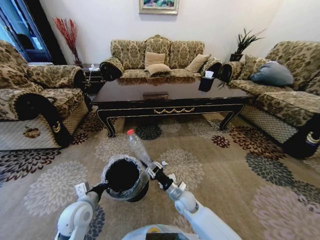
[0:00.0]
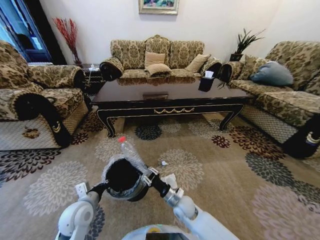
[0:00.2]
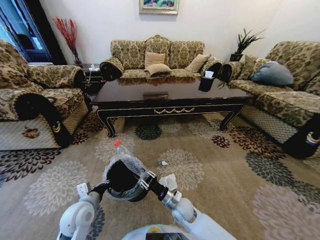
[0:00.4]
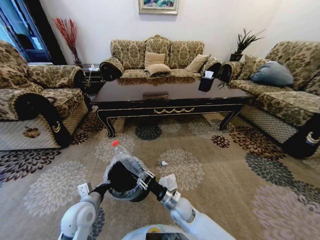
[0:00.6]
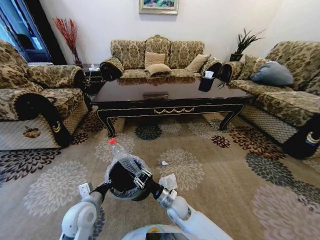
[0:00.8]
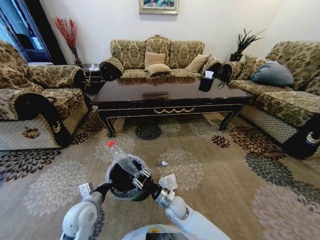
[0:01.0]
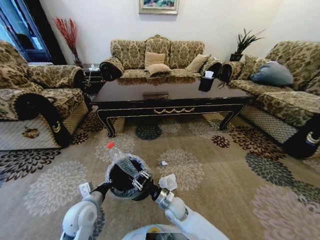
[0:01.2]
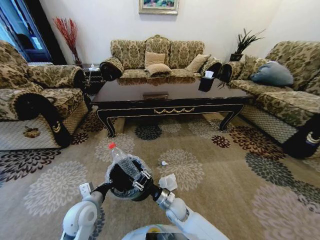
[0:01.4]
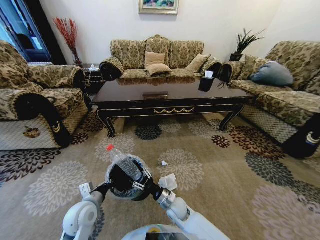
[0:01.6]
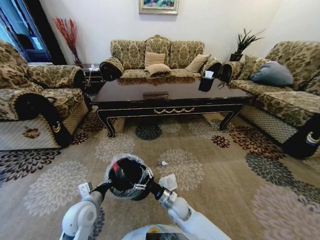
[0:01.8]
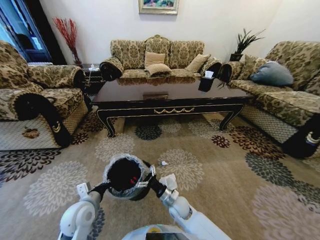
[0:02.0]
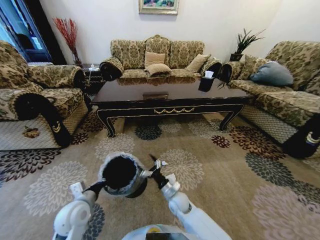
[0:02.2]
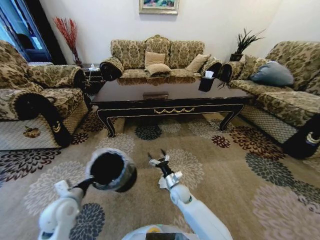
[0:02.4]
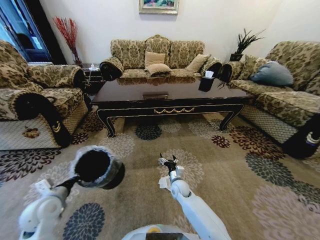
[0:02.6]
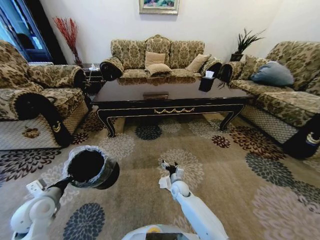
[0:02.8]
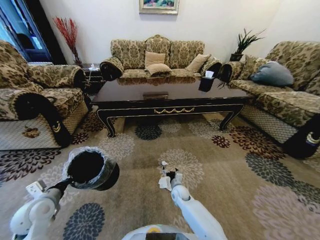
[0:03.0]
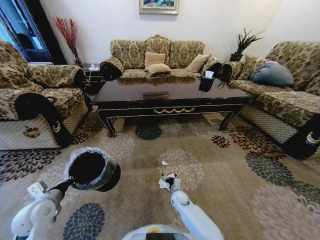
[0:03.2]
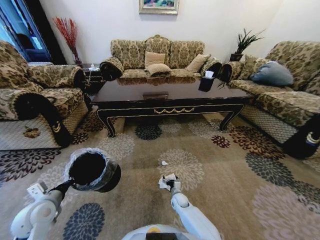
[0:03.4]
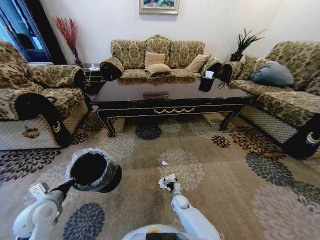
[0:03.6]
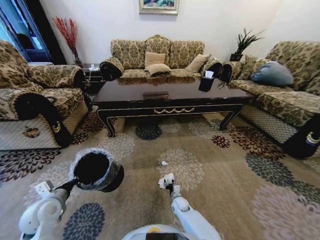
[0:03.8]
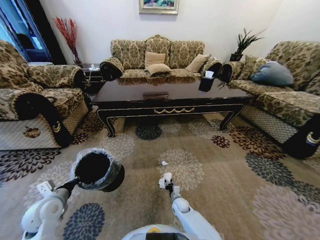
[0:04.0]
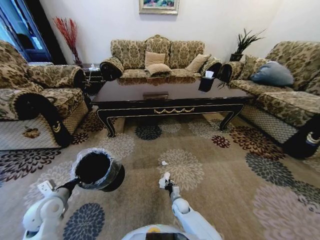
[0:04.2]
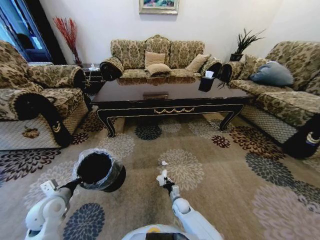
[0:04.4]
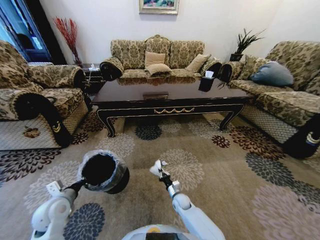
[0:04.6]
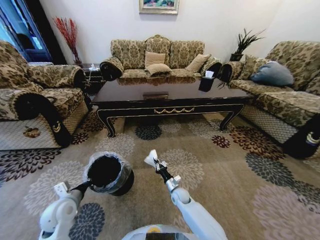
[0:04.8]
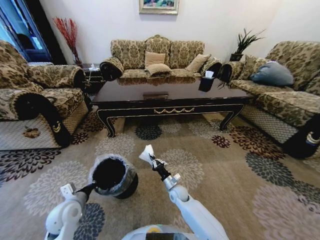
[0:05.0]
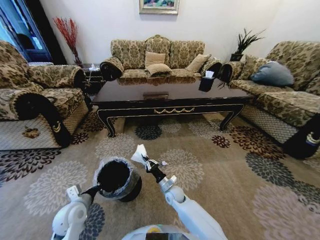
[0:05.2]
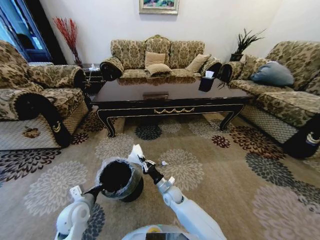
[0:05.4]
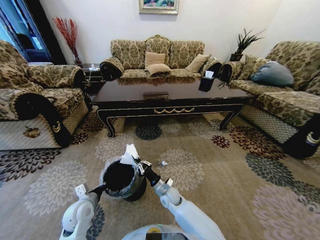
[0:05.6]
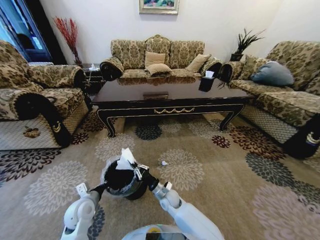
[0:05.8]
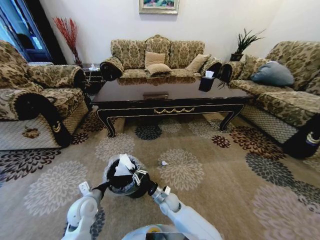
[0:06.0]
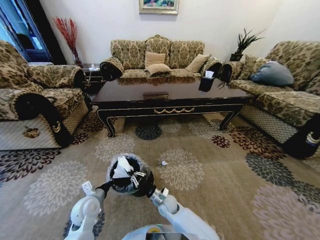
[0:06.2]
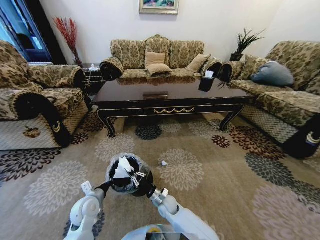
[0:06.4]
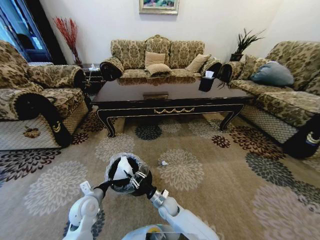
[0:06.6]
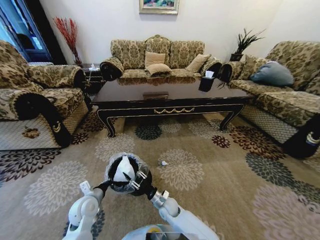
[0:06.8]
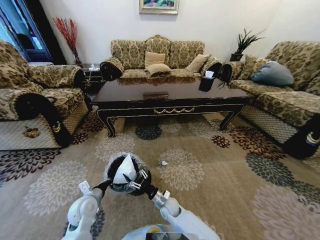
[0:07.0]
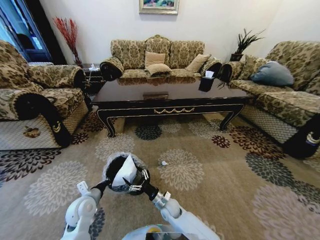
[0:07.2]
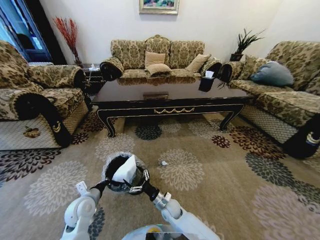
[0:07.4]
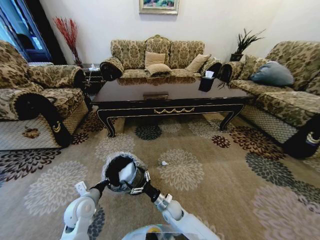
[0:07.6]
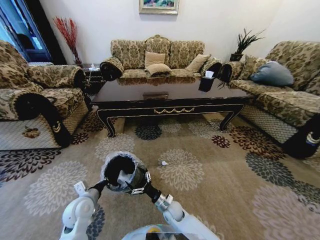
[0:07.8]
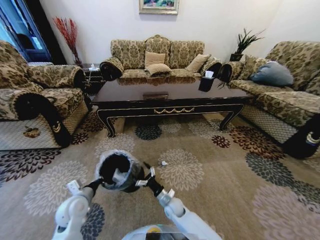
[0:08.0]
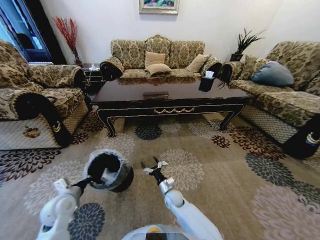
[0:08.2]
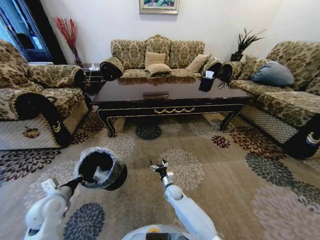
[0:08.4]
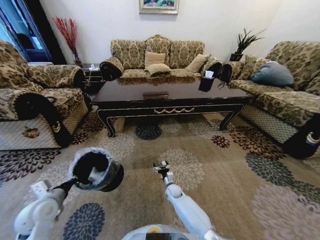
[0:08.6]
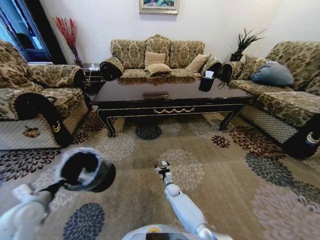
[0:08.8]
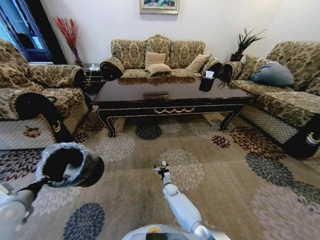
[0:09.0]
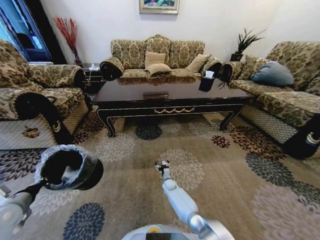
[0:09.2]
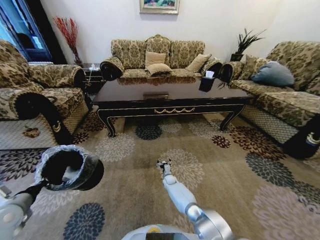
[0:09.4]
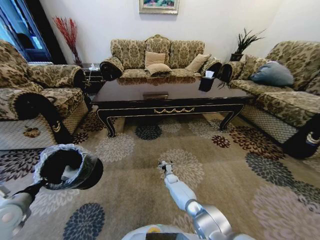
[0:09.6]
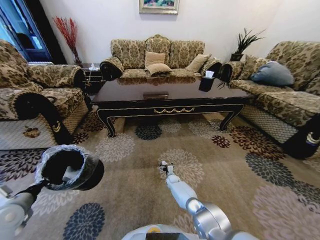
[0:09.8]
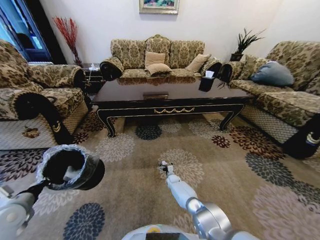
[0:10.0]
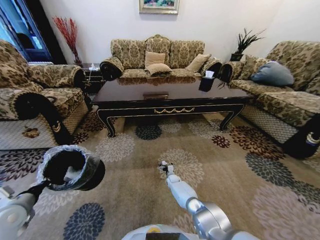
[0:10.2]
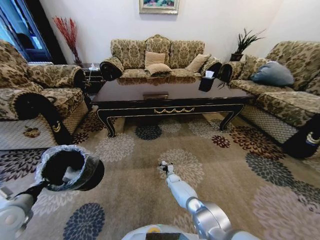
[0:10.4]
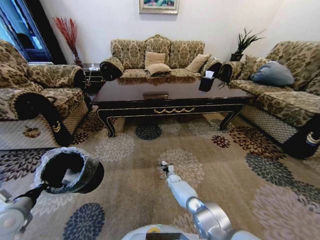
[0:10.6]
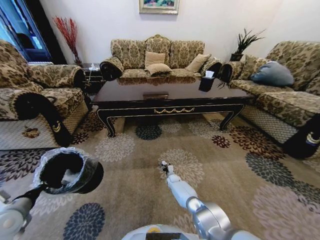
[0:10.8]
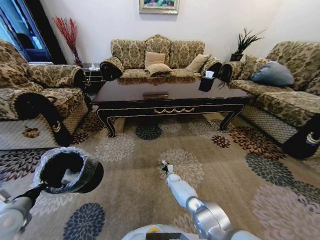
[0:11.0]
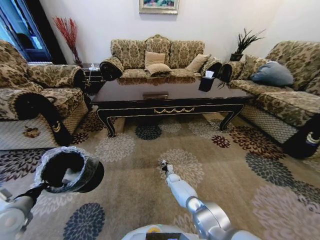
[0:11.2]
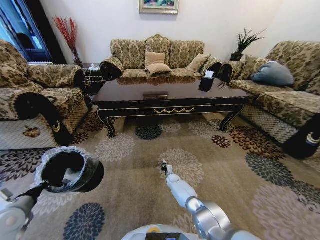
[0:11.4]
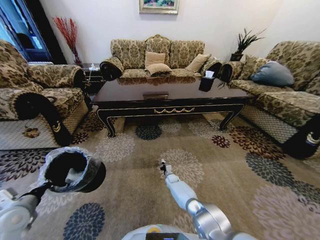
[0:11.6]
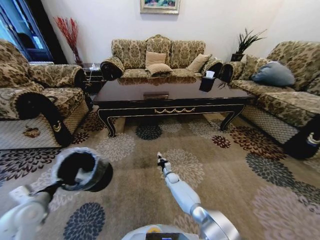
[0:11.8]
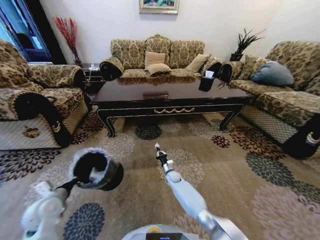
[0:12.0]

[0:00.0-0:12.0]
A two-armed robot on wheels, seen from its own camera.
Task of the whole recording: Move to the front of the table and pick up the trash from the floor, then place it into the trash bin.
0:00.0 to 0:01.6: The right gripper ends up some 5 cm from where it was.
0:01.6 to 0:03.0: The right gripper shifts about 10 cm forward and downward, and opens up. Meanwhile the left gripper goes about 15 cm to the left.
0:03.0 to 0:04.4: The right gripper travels downward by approximately 5 cm, and closes its fingers.
0:04.4 to 0:06.0: The left gripper heads to the right, covering some 10 cm, while the right gripper moves upward and to the left, some 15 cm.
0:06.0 to 0:07.6: The right gripper opens.
0:07.6 to 0:09.0: The right gripper heads forward and downward, covering about 15 cm. The left gripper moves to the left and upward, roughly 20 cm.
0:09.0 to 0:10.4: The right gripper is displaced forward by roughly 5 cm.
0:10.4 to 0:12.0: The right gripper is displaced upward by about 10 cm, and closes up. The left gripper heads to the right and downward, covering about 10 cm.

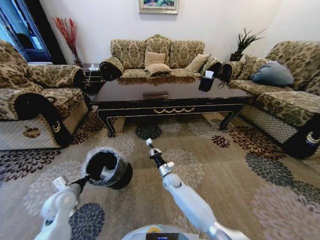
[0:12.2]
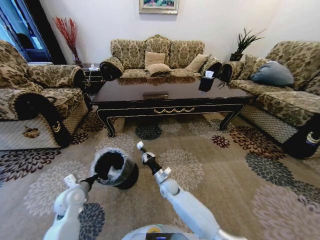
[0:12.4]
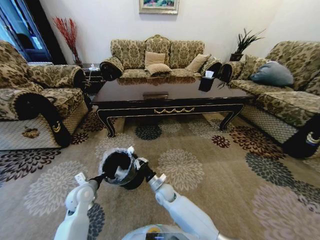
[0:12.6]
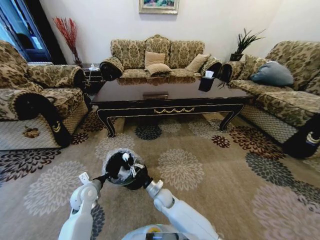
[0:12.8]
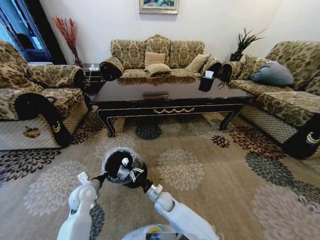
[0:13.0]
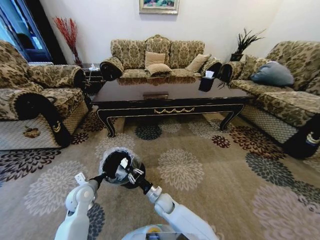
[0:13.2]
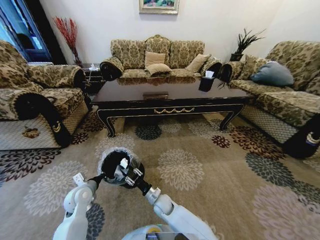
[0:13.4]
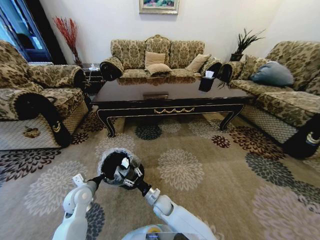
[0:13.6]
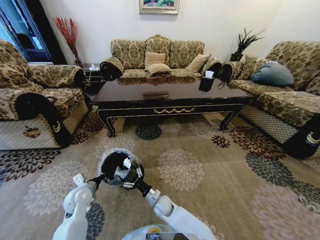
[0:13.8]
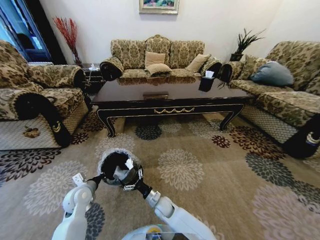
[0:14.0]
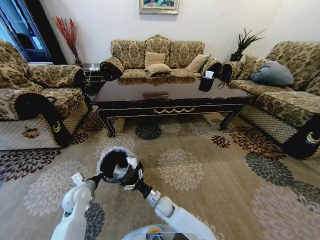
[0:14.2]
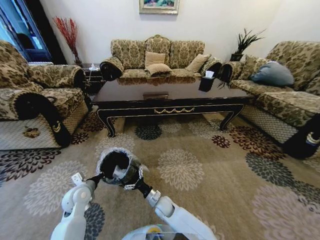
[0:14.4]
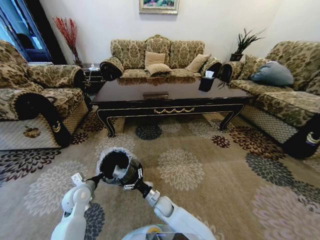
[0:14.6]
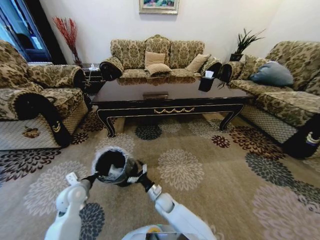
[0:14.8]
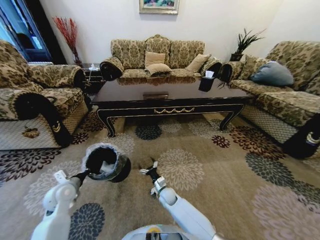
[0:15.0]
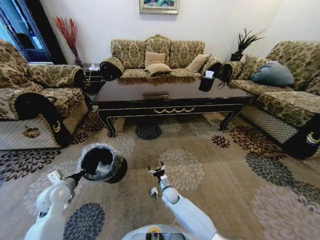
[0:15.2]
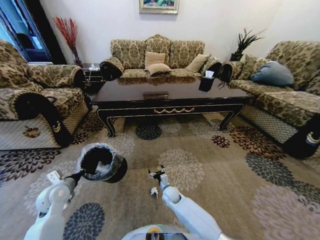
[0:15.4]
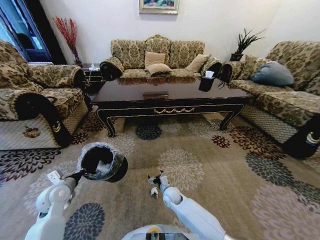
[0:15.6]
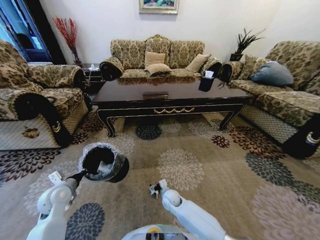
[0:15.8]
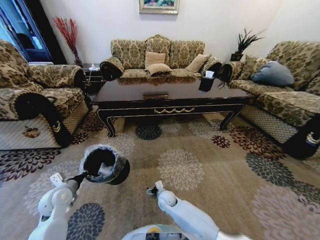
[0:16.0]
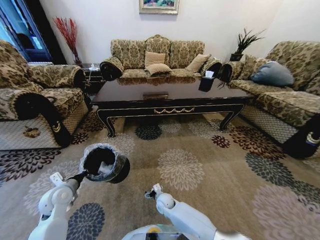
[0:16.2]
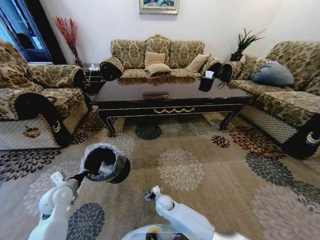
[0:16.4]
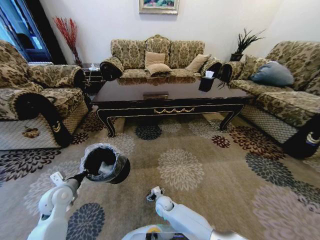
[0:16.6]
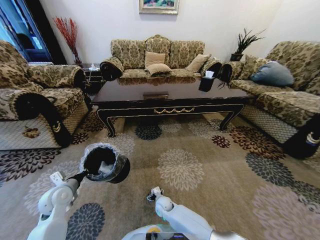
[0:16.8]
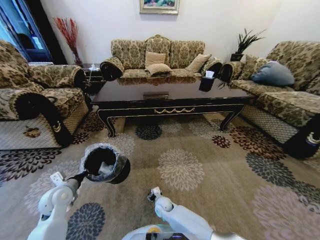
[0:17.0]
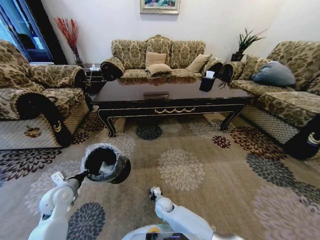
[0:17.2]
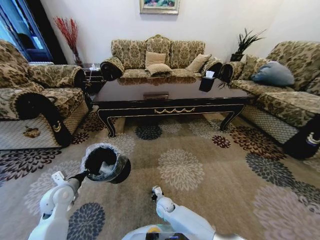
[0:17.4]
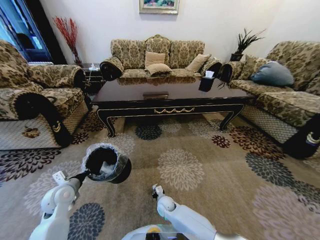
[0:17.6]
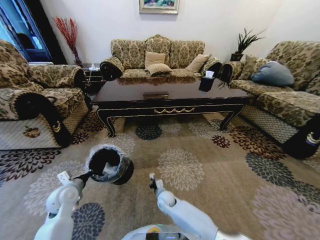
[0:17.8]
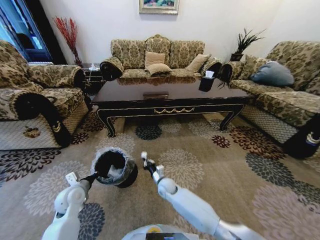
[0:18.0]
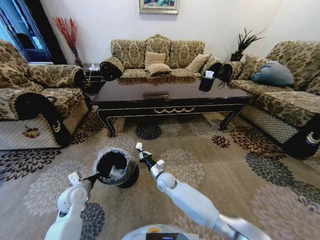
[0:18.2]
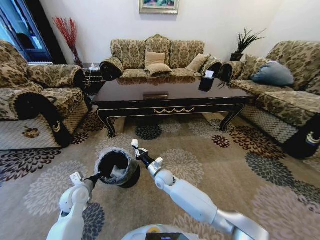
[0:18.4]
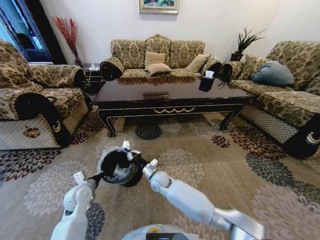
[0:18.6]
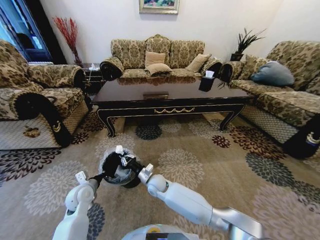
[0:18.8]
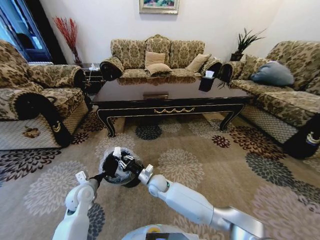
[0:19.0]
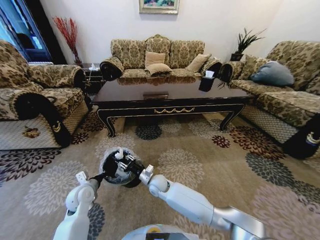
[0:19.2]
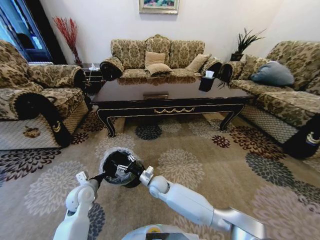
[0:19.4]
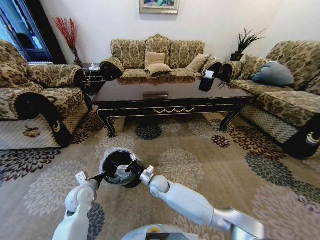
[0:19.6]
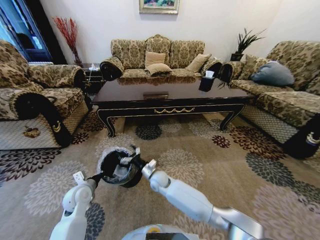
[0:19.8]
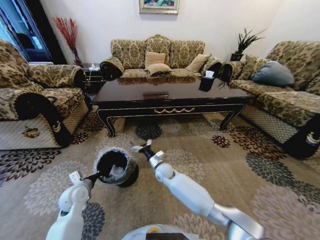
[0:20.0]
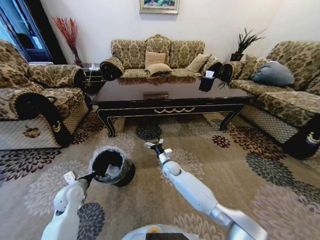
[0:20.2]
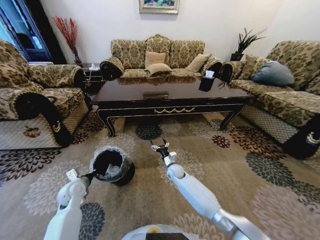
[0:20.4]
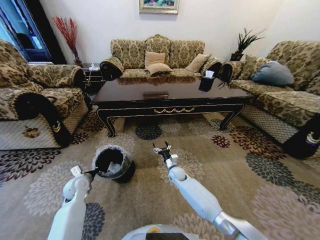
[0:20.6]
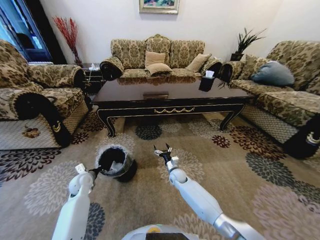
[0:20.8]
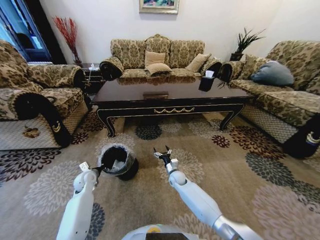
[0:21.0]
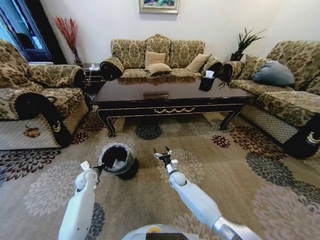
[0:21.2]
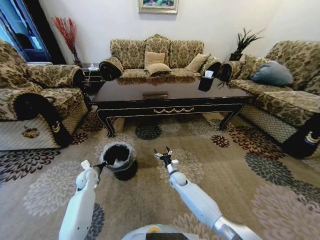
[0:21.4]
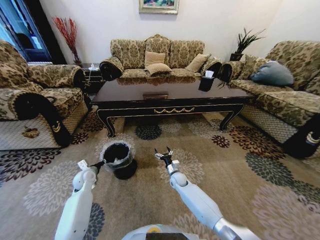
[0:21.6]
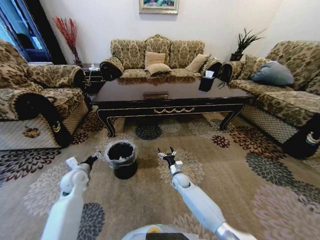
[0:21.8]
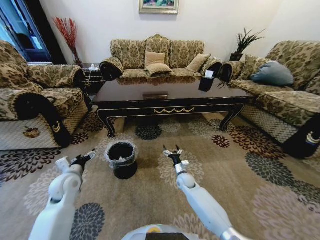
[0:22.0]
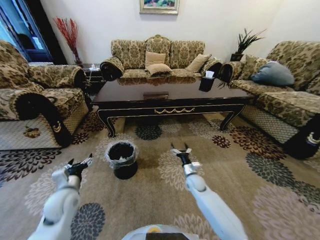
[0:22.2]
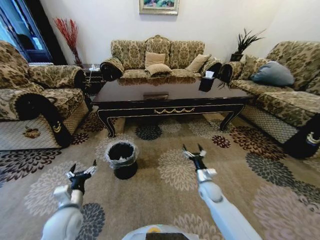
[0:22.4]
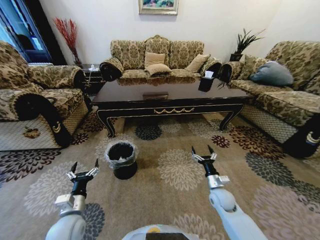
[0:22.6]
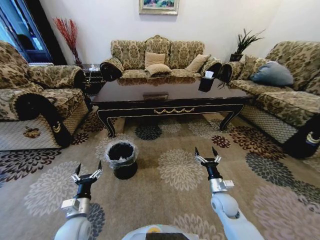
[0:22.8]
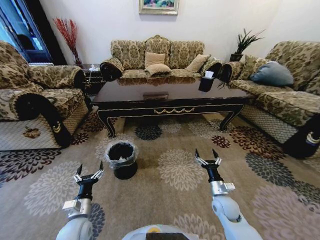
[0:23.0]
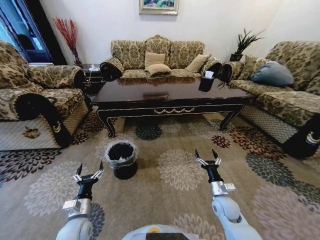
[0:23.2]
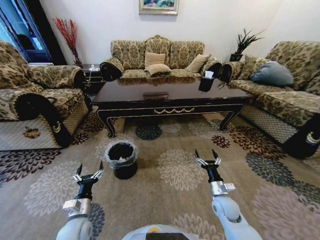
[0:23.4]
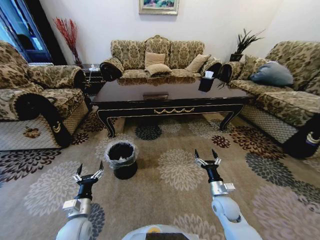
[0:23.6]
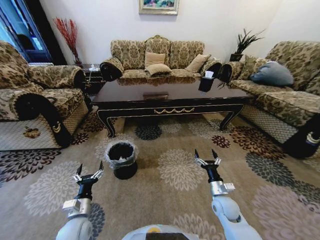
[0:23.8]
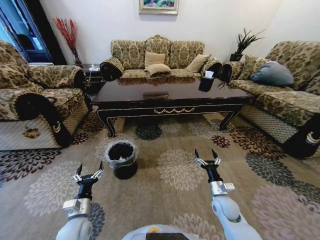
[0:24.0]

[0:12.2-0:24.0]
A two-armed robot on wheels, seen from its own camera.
Task of the whole recording: Move to the front of the table and pick up the trash from the floor, then place it into the trash bin.
0:12.2 to 0:13.6: The left gripper changes place by roughly 5 cm. Meanwhile the right gripper is displaced backward and to the left by approximately 15 cm, and opens.
0:13.6 to 0:15.2: The left gripper is displaced to the left by about 10 cm. Meanwhile the right gripper shifts approximately 10 cm forward and to the right, and opens.
0:15.2 to 0:16.6: The right gripper moves some 5 cm.
0:16.6 to 0:18.2: The right gripper heads upward and forward, covering roughly 15 cm, and closes; the left gripper shifts by about 5 cm.
0:18.2 to 0:19.6: The right gripper opens.
0:19.6 to 0:21.0: The right gripper travels to the right, downward and forward by approximately 15 cm; the left gripper travels forward by about 10 cm.
0:21.0 to 0:22.6: The left gripper travels backward by some 20 cm, and opens up; the right gripper moves to the right, backward and upward, approximately 20 cm.
0:22.6 to 0:24.0: The grippers make only small movements.
